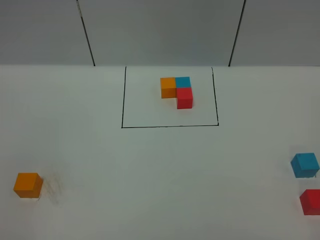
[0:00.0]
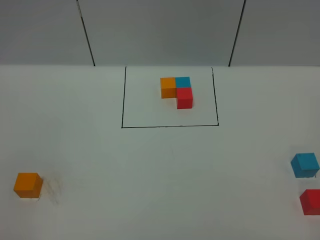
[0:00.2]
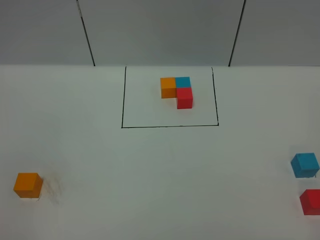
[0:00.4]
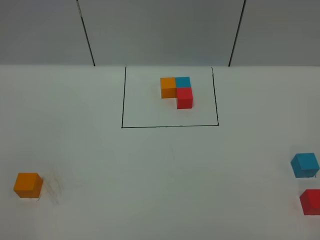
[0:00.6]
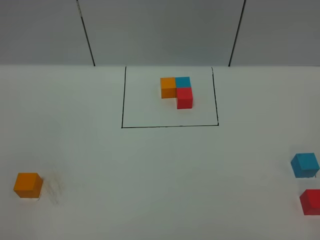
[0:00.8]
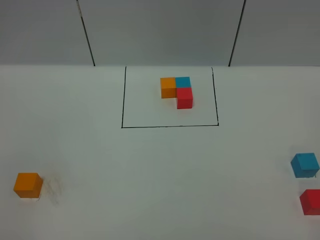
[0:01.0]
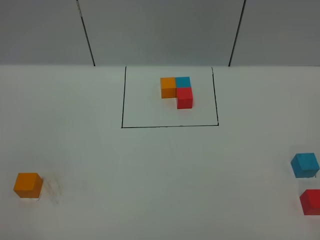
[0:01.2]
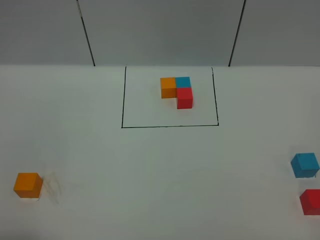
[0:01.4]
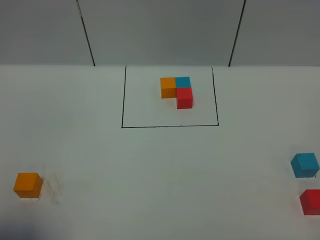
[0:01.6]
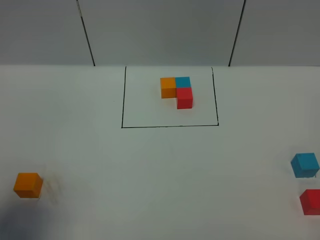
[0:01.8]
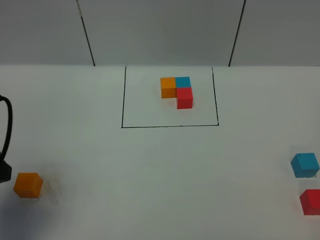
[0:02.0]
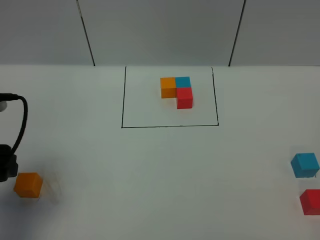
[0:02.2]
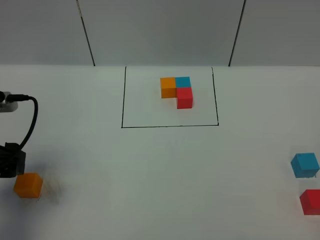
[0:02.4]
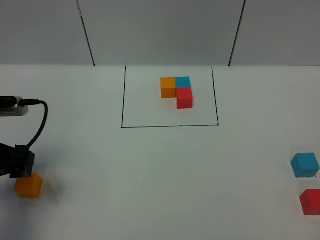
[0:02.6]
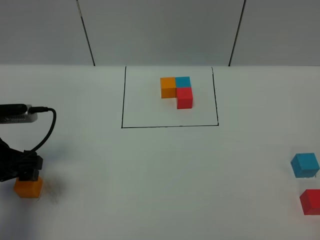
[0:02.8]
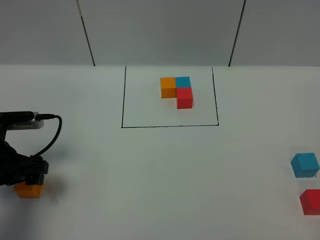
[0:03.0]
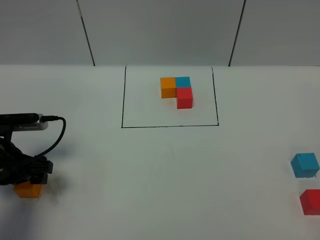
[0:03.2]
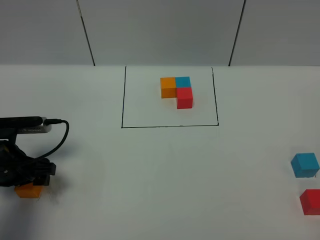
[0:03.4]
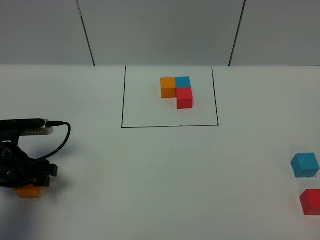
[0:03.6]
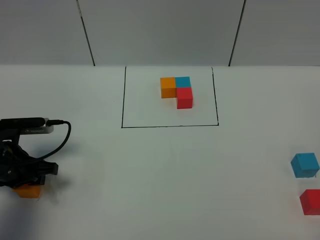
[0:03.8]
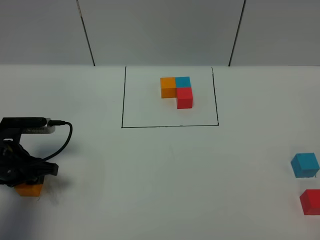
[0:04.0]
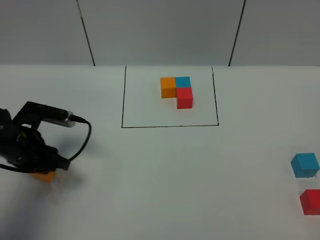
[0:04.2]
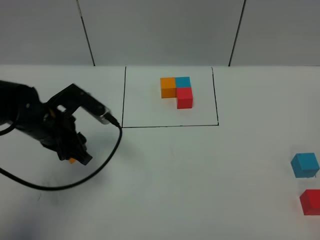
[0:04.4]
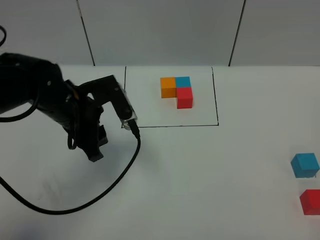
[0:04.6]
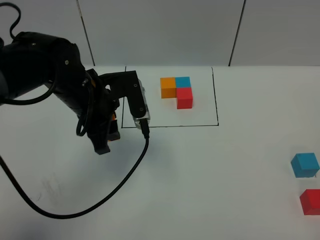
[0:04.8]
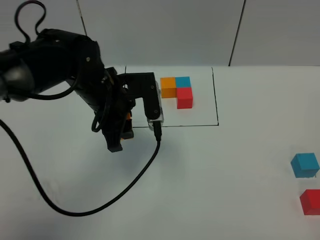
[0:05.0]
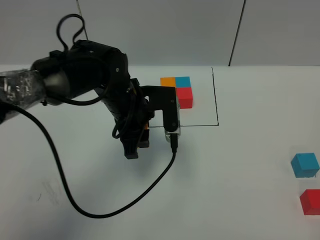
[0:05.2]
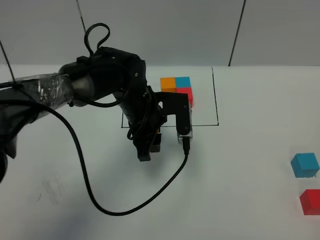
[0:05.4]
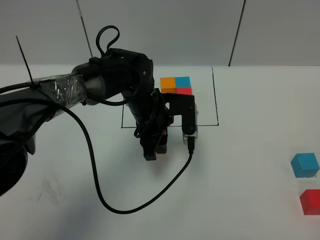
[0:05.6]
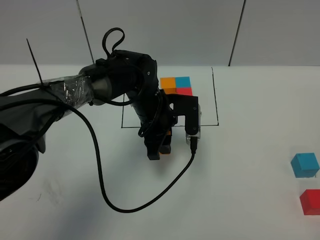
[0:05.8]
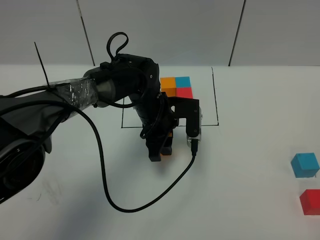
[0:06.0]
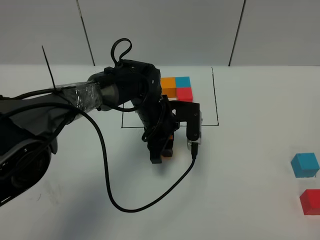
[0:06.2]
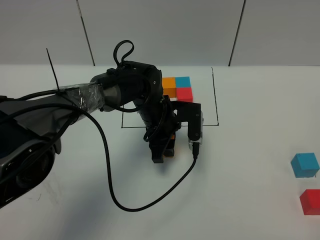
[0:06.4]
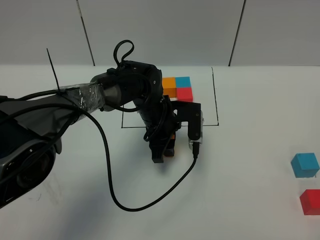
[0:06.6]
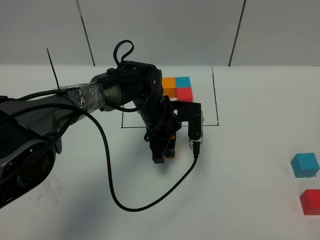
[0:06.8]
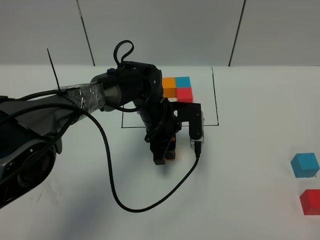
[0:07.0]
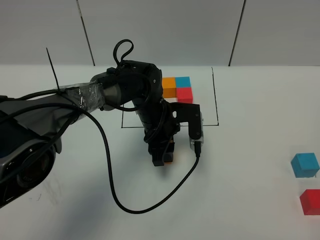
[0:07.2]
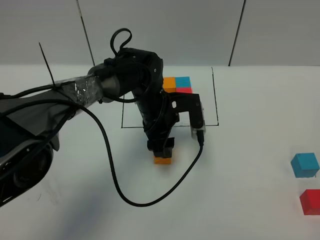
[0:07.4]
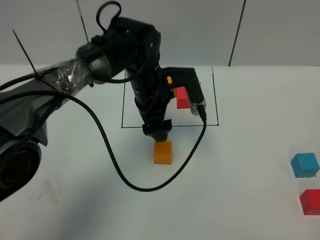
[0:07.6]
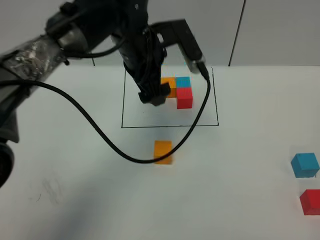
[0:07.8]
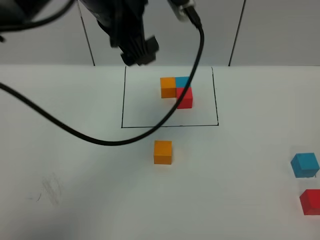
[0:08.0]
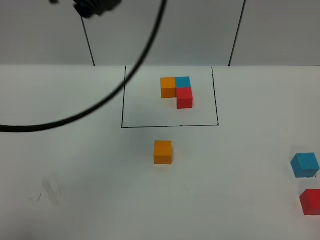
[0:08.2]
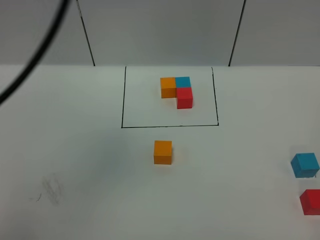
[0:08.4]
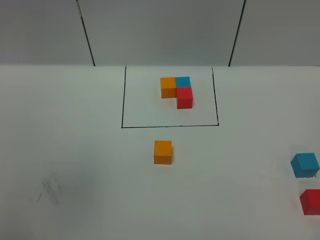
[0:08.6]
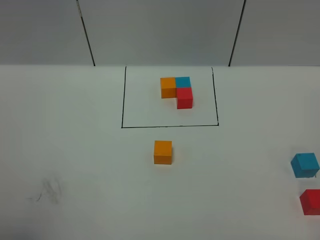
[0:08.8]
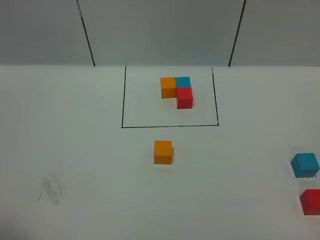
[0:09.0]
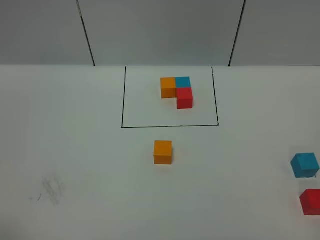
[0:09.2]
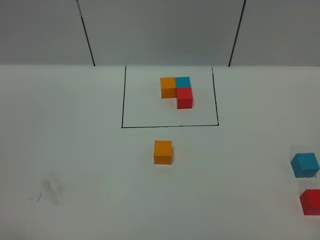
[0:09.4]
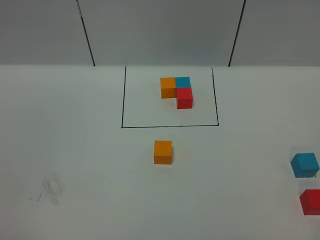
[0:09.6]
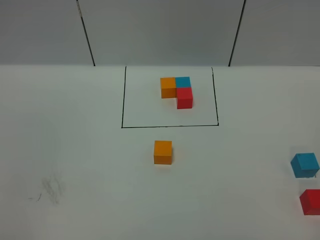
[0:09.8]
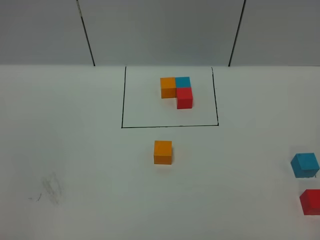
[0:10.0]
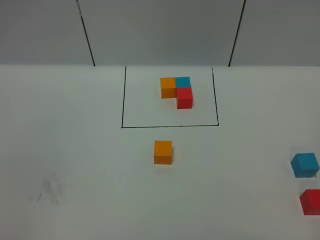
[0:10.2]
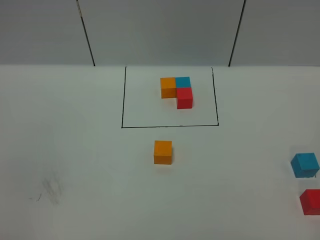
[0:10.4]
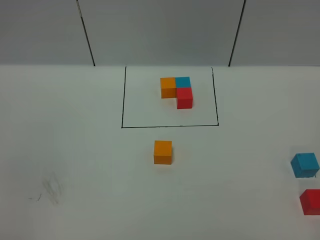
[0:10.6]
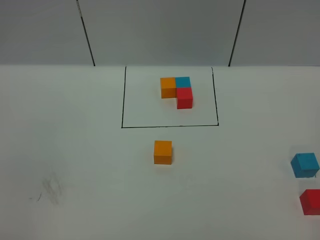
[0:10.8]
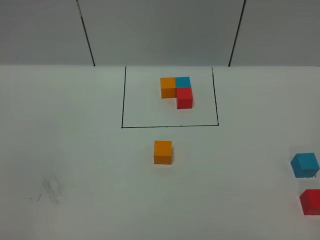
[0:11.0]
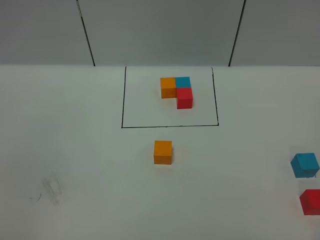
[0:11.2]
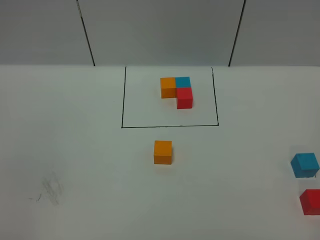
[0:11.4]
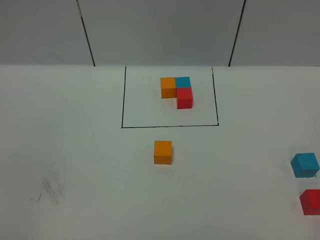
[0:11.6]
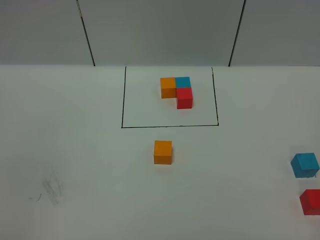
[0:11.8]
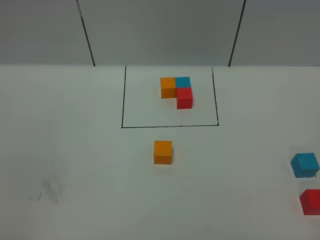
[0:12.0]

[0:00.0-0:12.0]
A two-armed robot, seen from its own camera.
Task of the whole recording: According to the building block template in front, assemble the scattered blocks together.
Step, 0:02.0 to 0:07.6: Put the orange cube in the center of the table.
0:00.0 to 0:01.6: The left gripper shifts about 10 cm forward, and opens its fingers.
0:01.6 to 0:03.0: The left gripper shifts approximately 25 cm forward and downward.
0:03.0 to 0:04.4: The left gripper travels to the right and forward by about 10 cm, and closes up.
0:04.4 to 0:06.0: The left gripper heads to the right, covering about 20 cm.
0:06.0 to 0:07.6: The left gripper shifts about 5 cm upward, and opens its fingers.
0:07.6 to 0:09.0: The left gripper moves backward, to the left and upward, about 60 cm.
0:10.4 to 0:12.0: Both grippers stay about where they are.

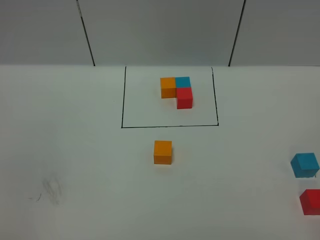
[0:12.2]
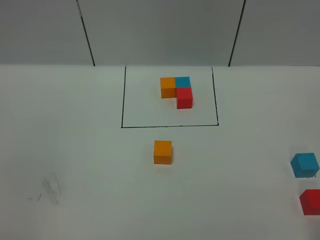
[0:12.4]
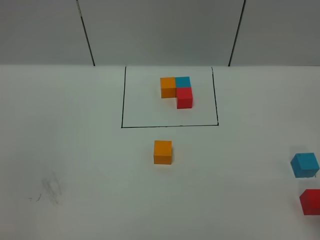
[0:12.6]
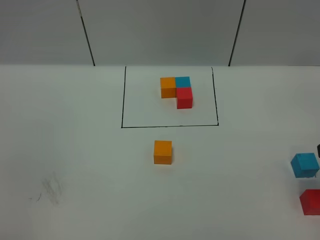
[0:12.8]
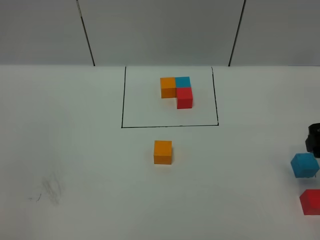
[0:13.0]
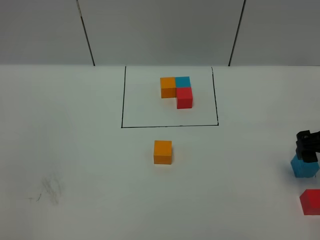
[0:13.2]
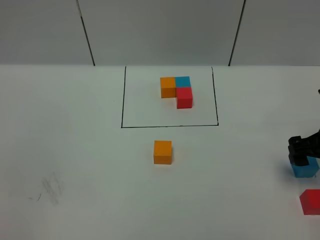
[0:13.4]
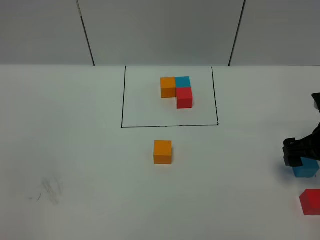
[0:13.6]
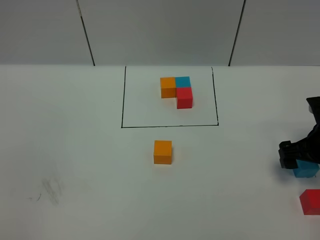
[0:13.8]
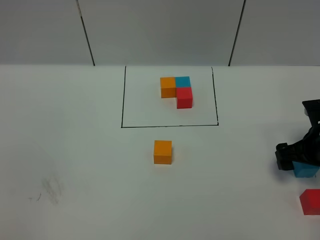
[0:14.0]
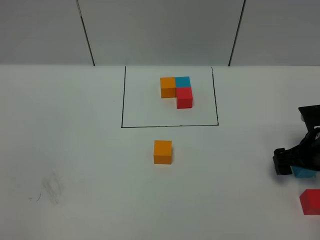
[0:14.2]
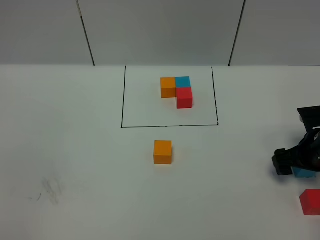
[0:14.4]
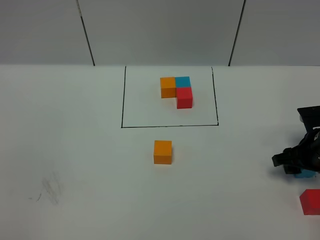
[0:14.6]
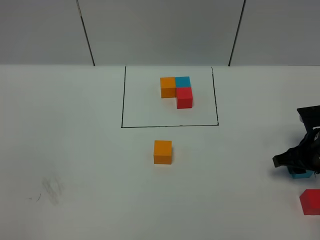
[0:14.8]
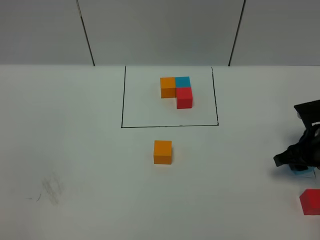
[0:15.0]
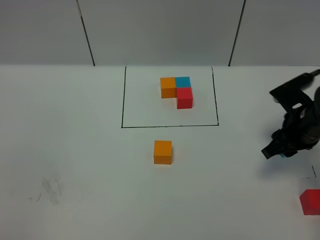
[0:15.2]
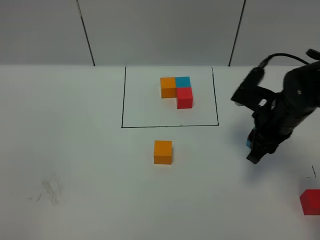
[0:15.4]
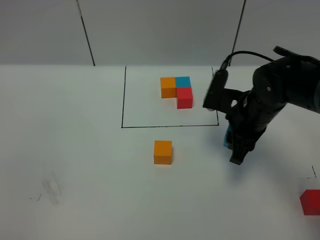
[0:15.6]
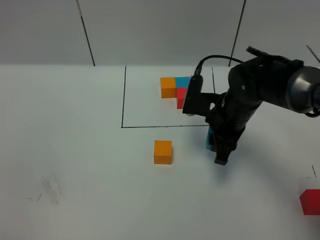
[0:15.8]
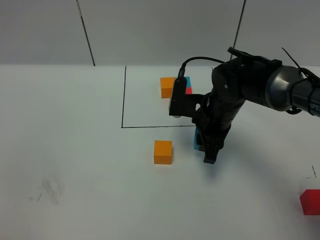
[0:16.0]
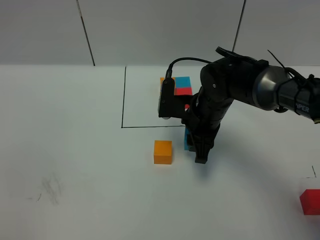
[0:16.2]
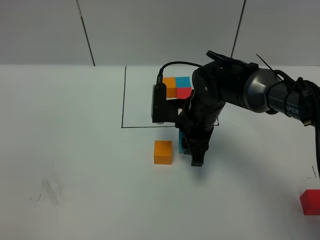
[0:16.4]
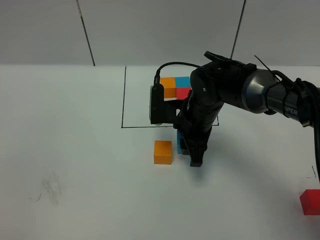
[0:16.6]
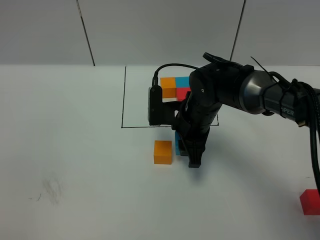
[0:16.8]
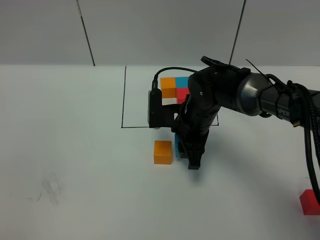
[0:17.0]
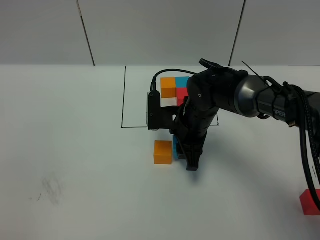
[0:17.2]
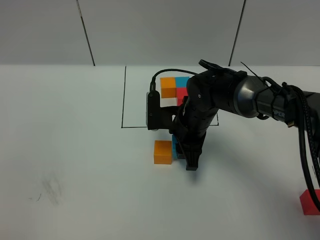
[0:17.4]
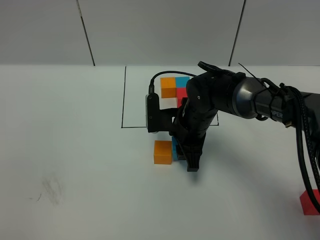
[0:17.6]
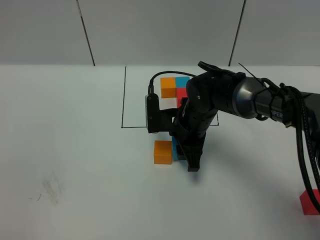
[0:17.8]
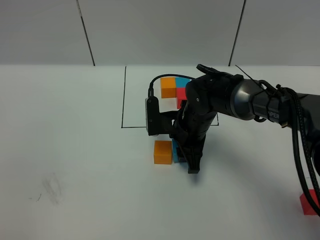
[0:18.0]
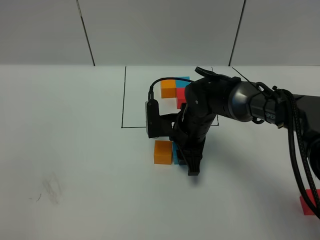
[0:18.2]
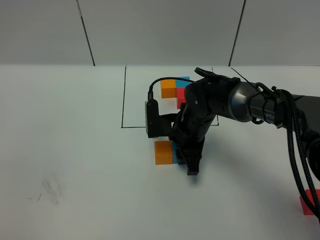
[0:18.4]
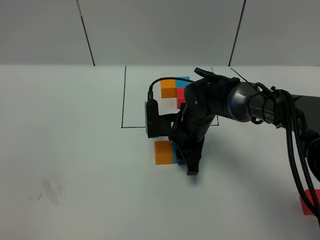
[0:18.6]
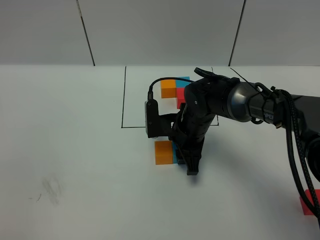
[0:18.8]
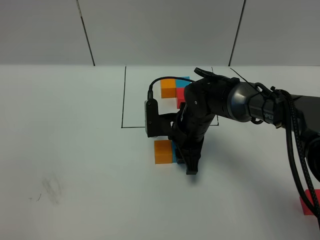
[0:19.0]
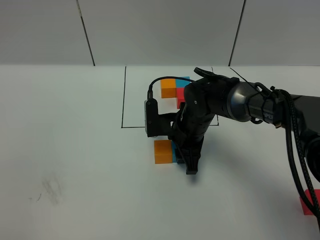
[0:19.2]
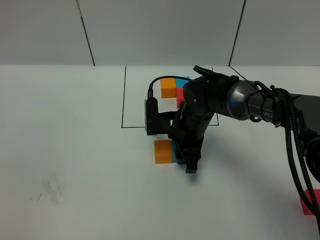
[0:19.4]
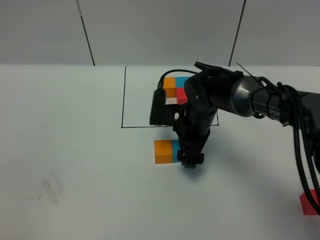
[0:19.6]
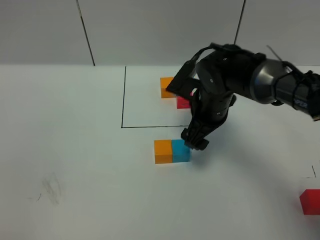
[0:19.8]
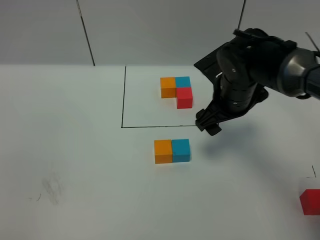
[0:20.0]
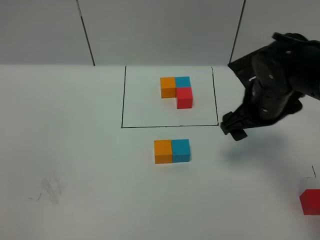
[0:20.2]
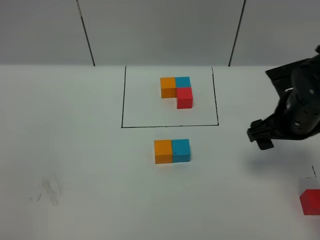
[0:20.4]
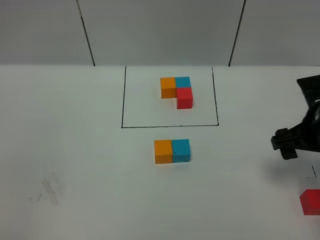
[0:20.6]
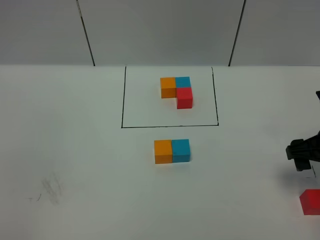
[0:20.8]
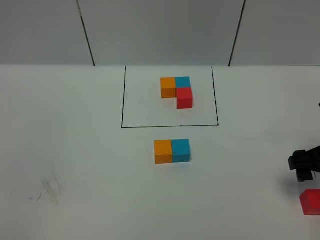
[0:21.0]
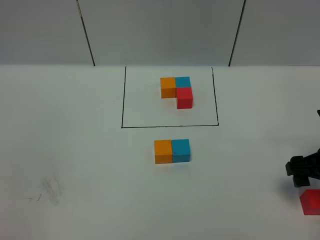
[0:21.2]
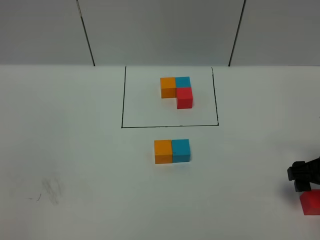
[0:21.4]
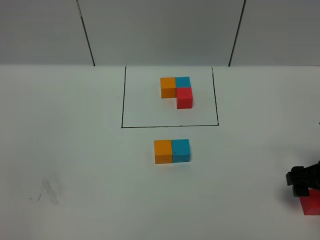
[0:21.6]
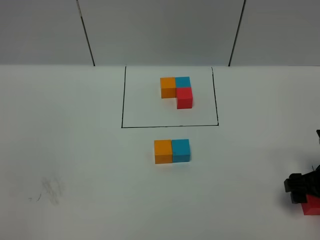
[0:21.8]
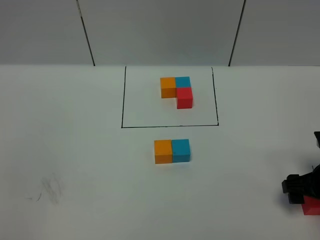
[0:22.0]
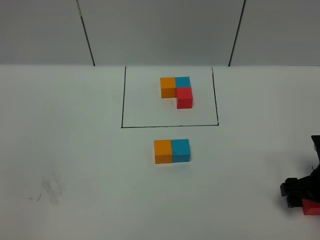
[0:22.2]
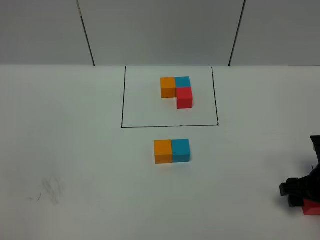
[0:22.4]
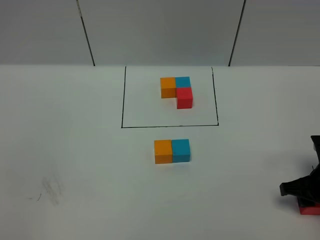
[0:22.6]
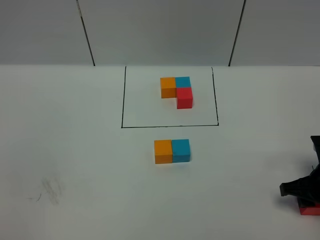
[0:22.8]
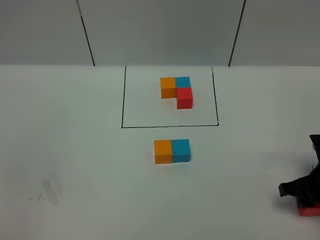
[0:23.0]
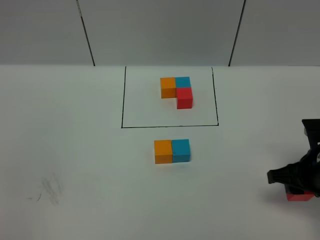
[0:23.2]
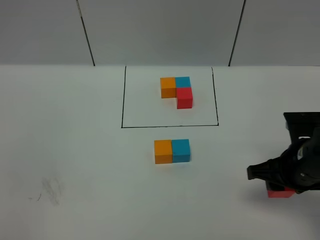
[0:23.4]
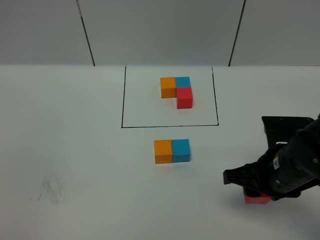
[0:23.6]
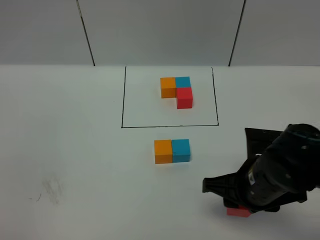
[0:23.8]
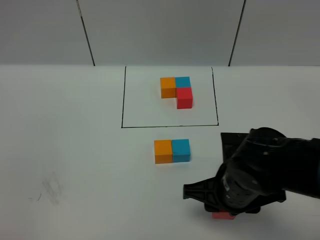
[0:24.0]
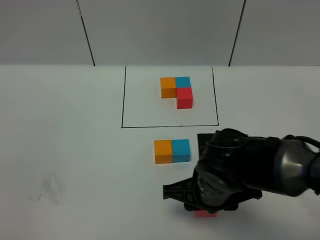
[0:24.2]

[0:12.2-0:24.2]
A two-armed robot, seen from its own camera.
Task of the whole recording: According to the building block template in front, assemble the scattered blocks together.
Step, 0:12.2 to 0:19.6: Put the blue cube on the right of the orange cube.
0:12.2 to 0:13.8: The right gripper goes roughly 30 cm forward and downward, and opens up.
0:13.8 to 0:15.2: The right gripper changes place by roughly 5 cm, and closes up.
0:15.2 to 0:16.6: The right gripper travels to the left by about 20 cm.
0:16.6 to 0:18.2: The grippers move only a little.
0:18.2 to 0:19.8: The right gripper goes about 5 cm upward, and opens its fingers.
0:19.8 to 0:21.2: The right gripper heads to the right and backward, covering some 25 cm.
0:21.2 to 0:22.6: The right gripper shifts approximately 5 cm downward, and closes up.
0:22.6 to 0:24.2: The right gripper shifts roughly 20 cm to the left.
